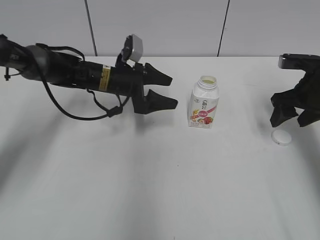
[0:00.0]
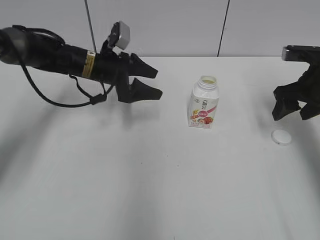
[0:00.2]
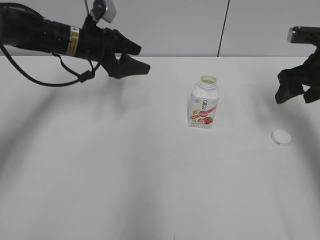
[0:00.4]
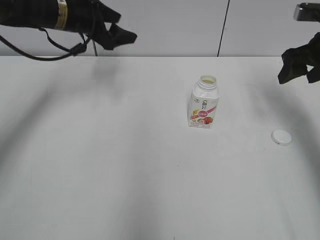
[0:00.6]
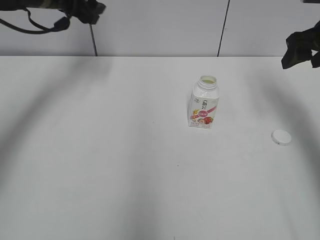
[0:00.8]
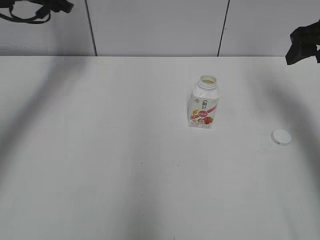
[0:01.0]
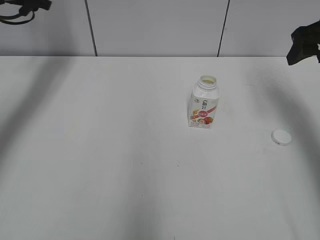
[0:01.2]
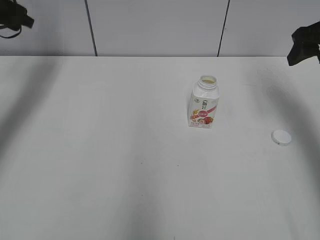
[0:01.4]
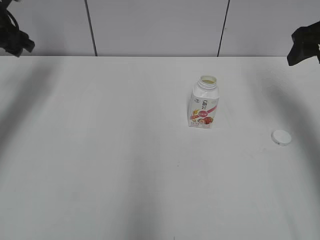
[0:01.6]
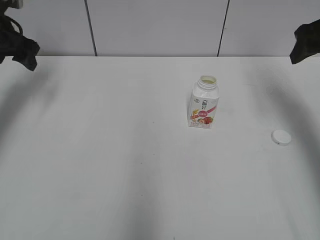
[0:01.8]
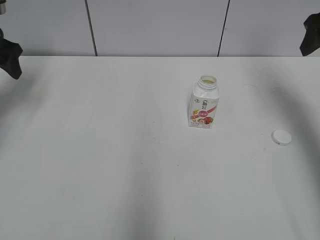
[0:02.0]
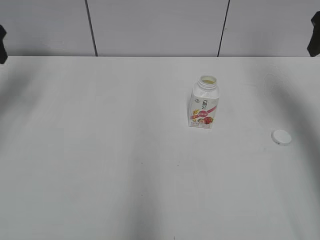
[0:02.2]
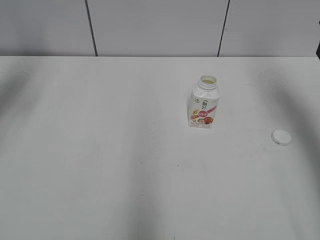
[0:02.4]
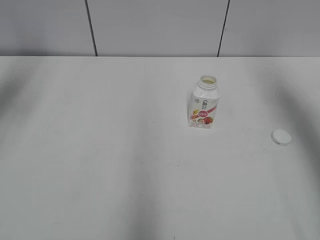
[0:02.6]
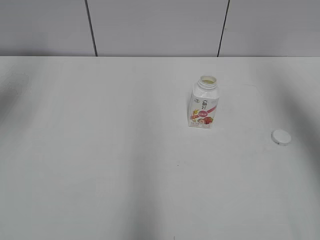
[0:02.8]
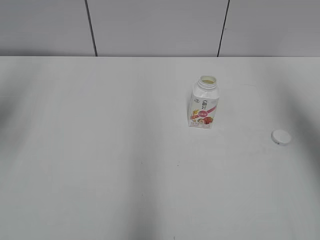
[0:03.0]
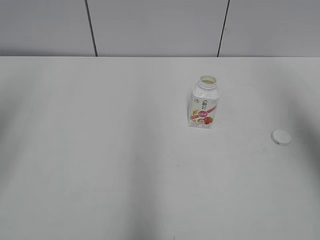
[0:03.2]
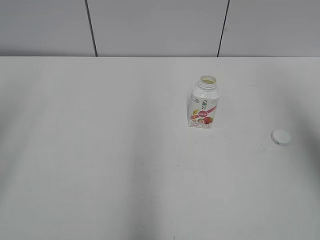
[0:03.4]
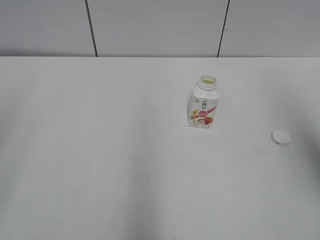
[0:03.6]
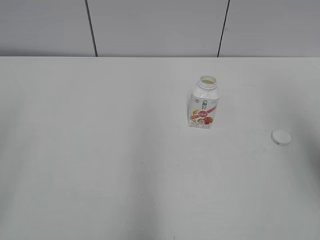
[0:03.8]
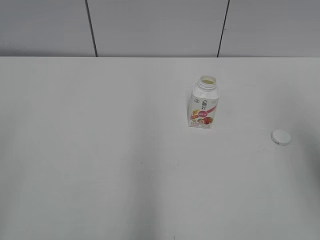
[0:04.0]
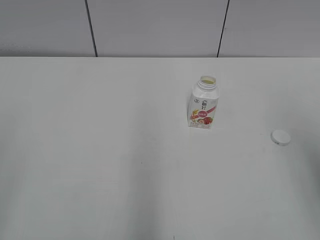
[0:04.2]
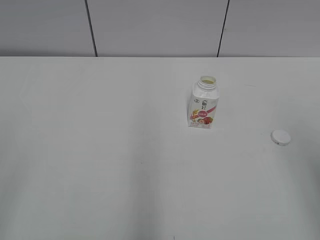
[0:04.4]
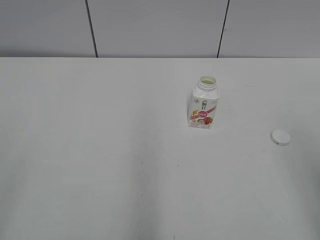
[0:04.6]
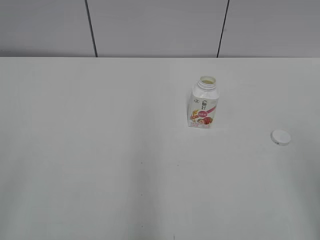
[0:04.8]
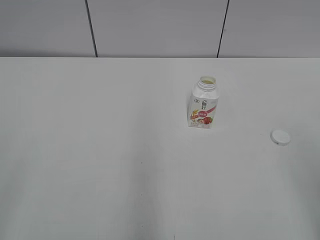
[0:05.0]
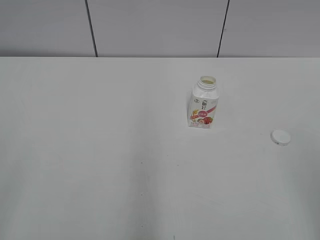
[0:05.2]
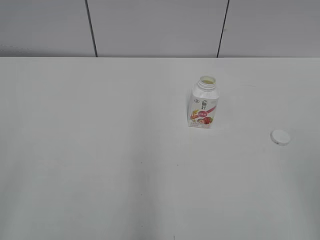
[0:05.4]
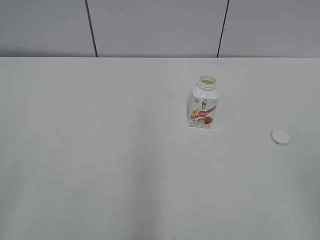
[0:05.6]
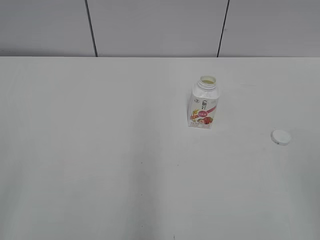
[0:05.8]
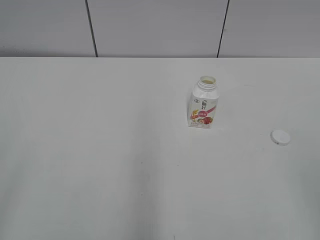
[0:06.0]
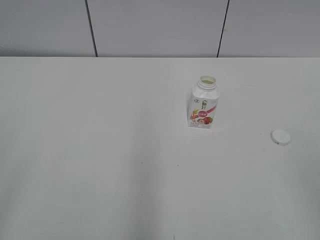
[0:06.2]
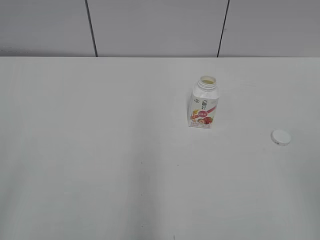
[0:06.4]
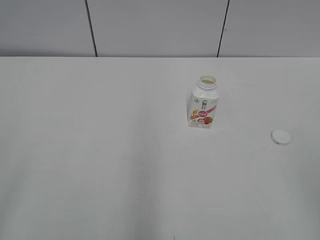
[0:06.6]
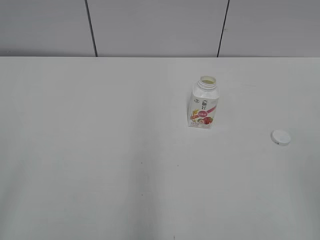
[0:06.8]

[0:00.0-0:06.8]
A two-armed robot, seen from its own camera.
0:00.0 to 0:01.4: The left gripper moves to the left and upward, some 30 cm. The right gripper goes some 10 cm upward.
0:01.4 to 0:02.8: The left gripper is displaced backward and upward by about 15 cm; the right gripper is displaced upward and backward by roughly 10 cm.
0:02.8 to 0:04.0: The right gripper shifts approximately 15 cm backward. The left gripper moves backward, some 30 cm.
0:04.0 to 0:05.4: The right gripper is displaced backward and downward by about 15 cm.

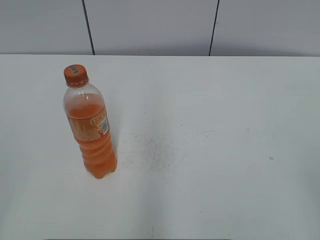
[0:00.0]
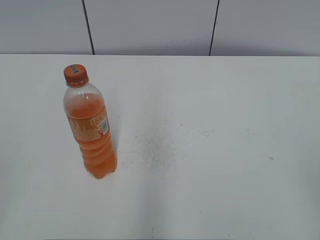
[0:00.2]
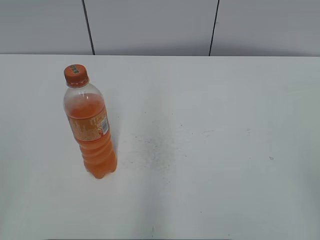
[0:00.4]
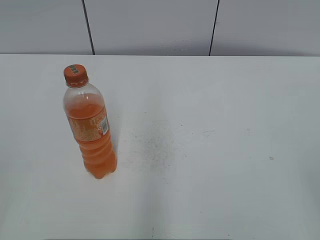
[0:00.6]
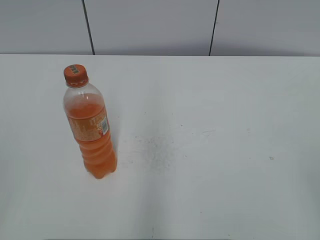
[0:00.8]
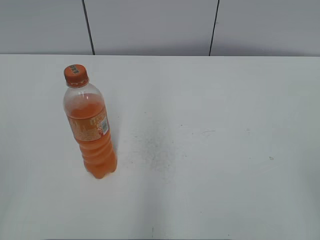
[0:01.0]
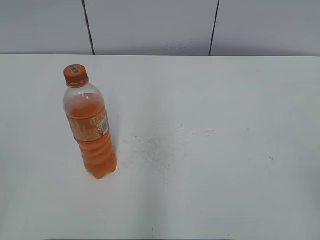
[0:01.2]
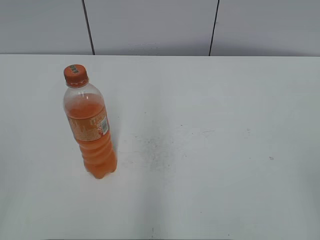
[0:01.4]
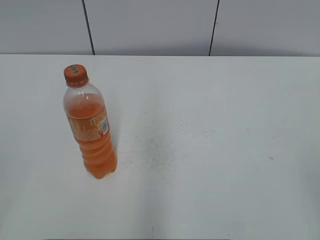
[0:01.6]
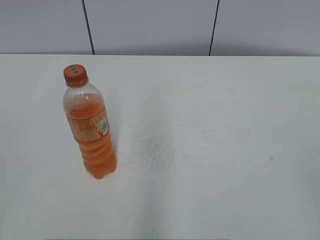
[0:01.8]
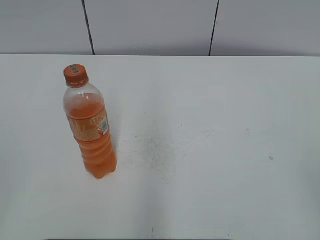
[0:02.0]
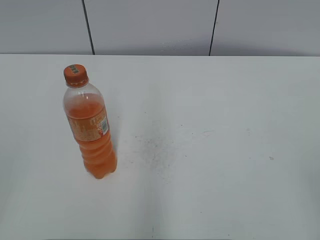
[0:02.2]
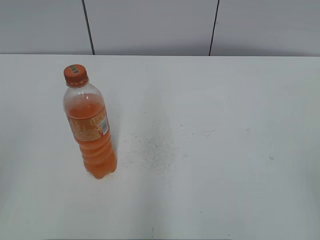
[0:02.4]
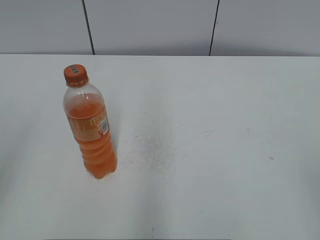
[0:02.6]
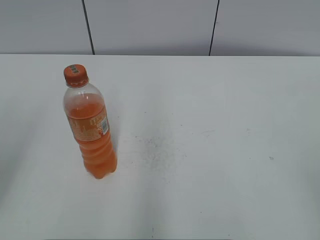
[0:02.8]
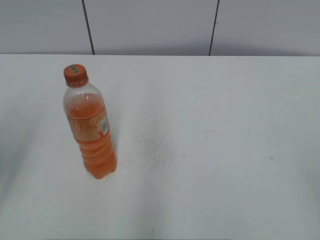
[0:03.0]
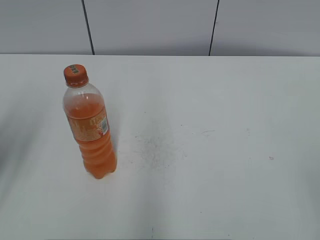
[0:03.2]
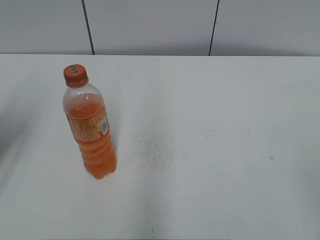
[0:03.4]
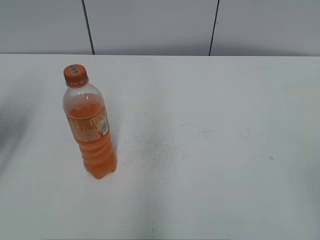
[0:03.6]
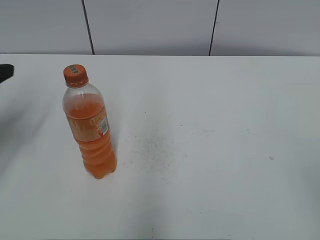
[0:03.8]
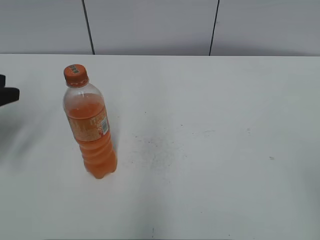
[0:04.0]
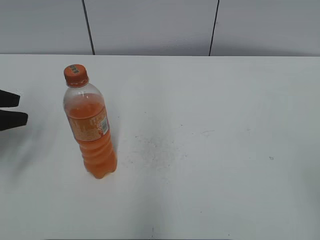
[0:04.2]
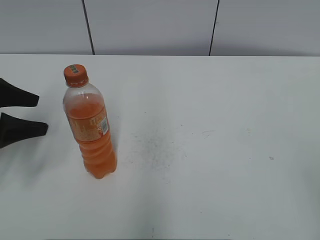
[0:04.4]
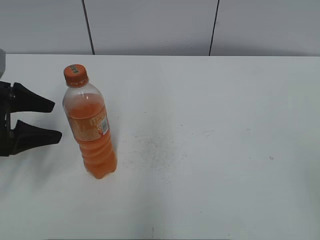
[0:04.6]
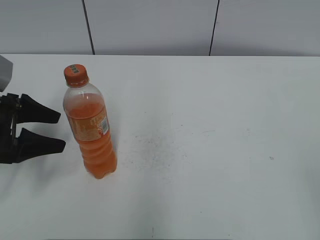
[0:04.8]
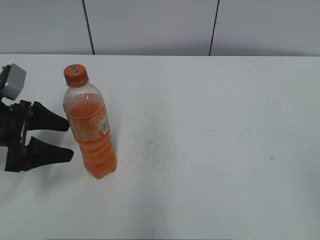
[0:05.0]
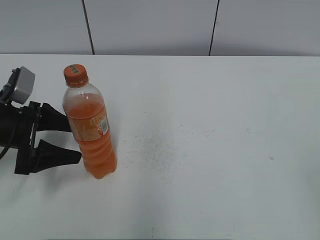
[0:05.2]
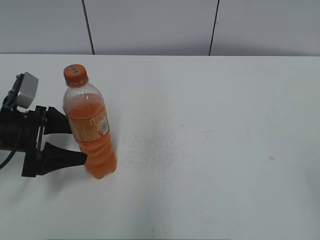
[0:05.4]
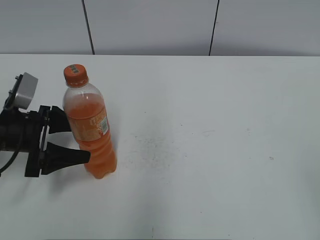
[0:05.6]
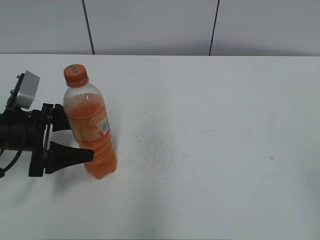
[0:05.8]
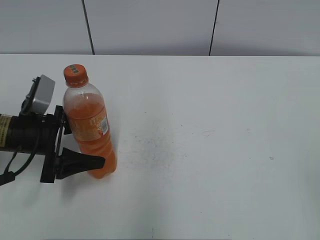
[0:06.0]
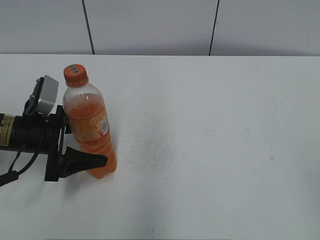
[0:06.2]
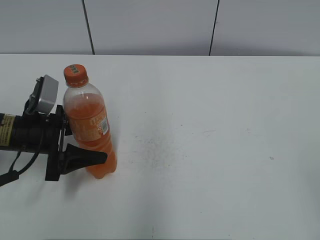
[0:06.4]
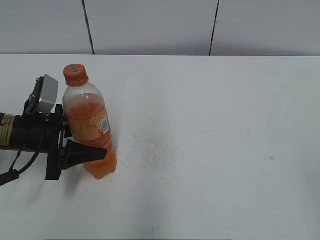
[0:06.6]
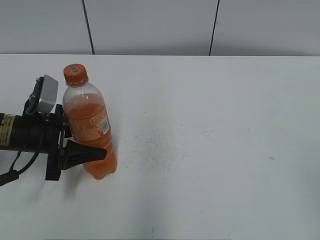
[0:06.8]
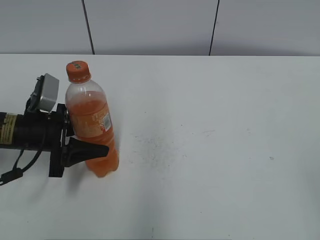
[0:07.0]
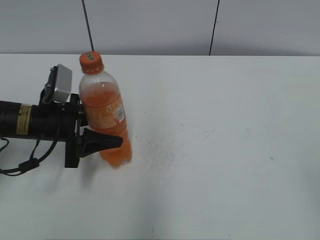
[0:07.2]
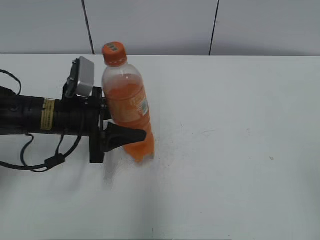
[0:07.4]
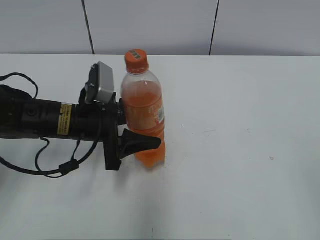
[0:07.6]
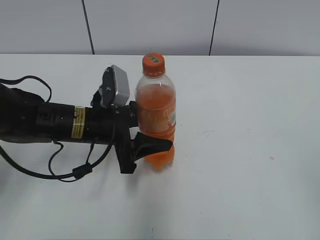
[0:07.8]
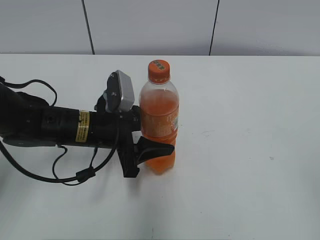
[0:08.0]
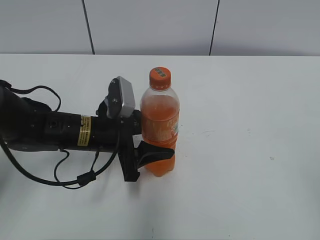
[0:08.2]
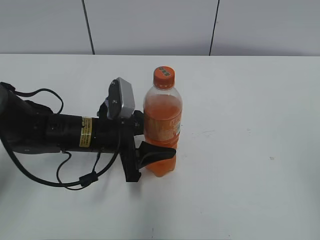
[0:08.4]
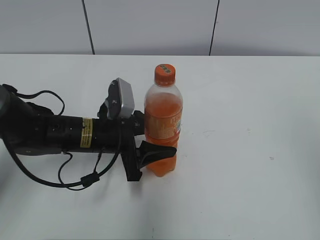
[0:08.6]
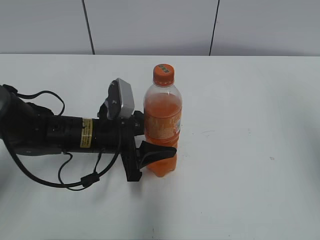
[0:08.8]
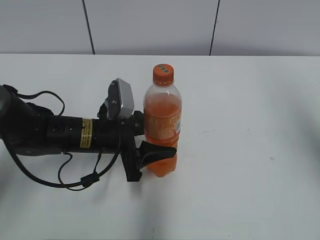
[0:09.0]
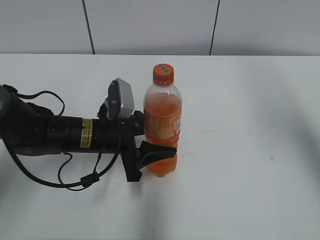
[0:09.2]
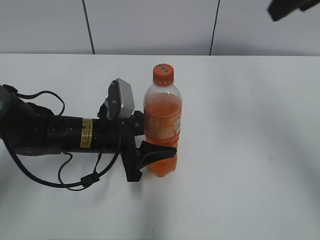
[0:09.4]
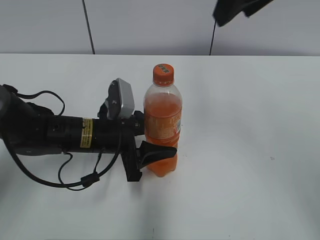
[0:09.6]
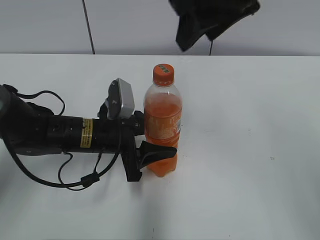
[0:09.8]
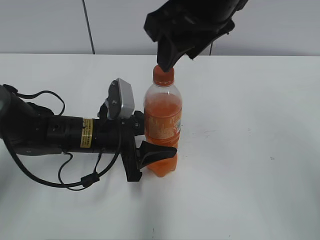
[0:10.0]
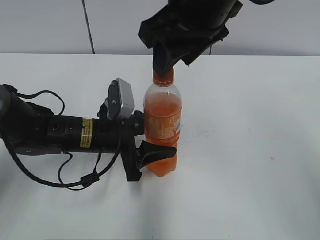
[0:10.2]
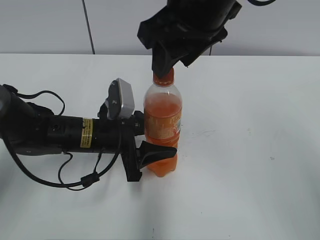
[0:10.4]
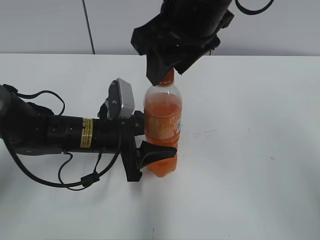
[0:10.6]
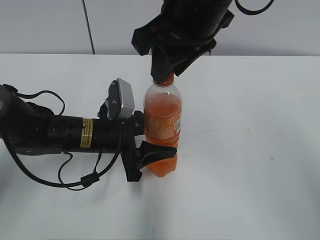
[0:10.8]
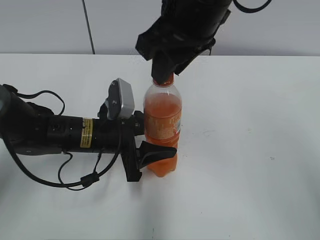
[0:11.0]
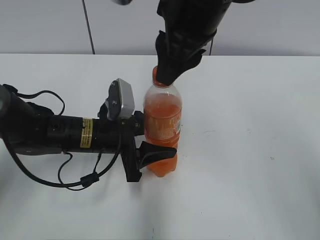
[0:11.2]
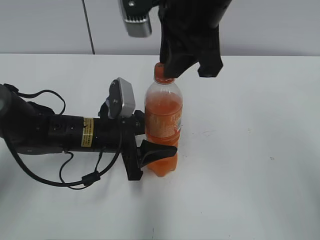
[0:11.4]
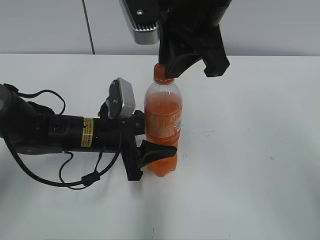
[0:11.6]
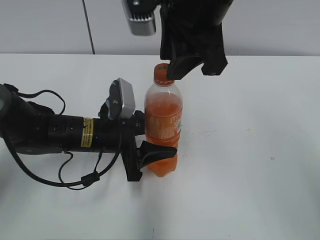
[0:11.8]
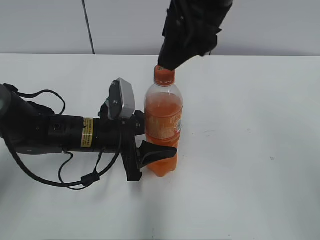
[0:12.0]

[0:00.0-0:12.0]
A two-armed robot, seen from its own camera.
Step, 0:00.0 to 0:06.6: Grab the Mirinda with the left hand.
Step, 0:06.8 to 0:08.4: Move the Mirinda from left to right.
0:01.6 to 0:03.0: The left gripper travels forward by about 15 cm, and opens.
0:03.0 to 0:04.4: The left gripper shifts approximately 15 cm forward and downward, and opens.
0:04.4 to 0:06.0: The left gripper is displaced to the right and downward by approximately 10 cm.
0:06.0 to 0:07.6: The left gripper travels to the right by roughly 10 cm, and closes up.
0:07.6 to 0:09.0: The right gripper travels forward and upward by some 25 cm.
0:09.0 to 0:10.4: The right gripper travels to the left by some 25 cm.
0:10.4 to 0:12.0: The right gripper closes, then reopens.

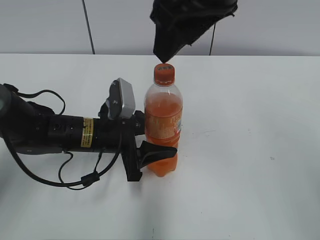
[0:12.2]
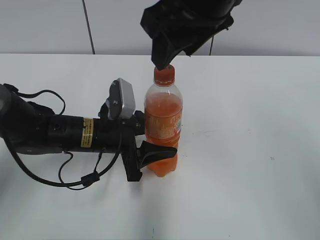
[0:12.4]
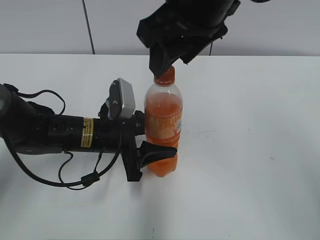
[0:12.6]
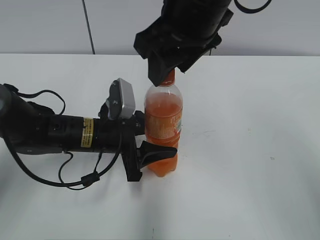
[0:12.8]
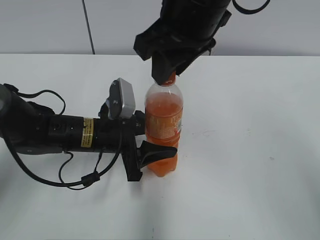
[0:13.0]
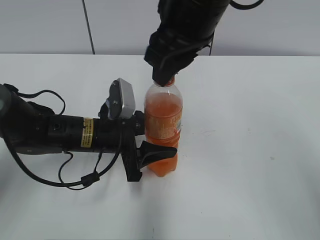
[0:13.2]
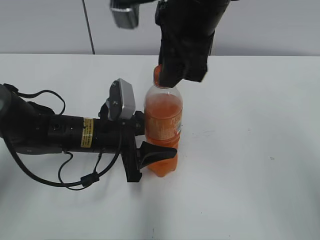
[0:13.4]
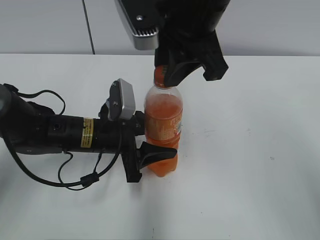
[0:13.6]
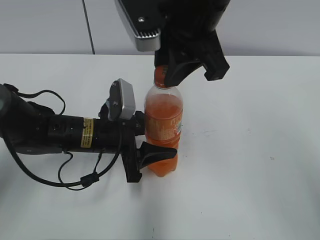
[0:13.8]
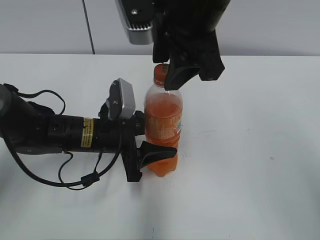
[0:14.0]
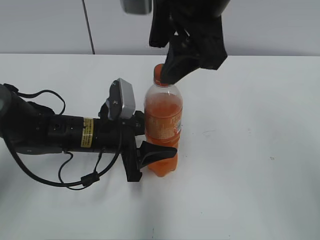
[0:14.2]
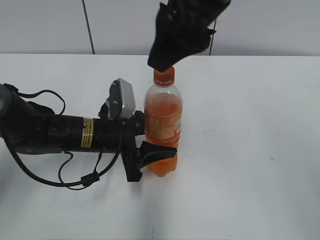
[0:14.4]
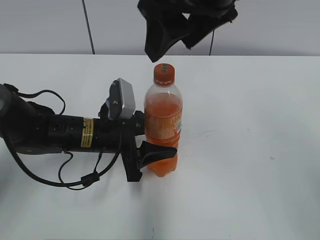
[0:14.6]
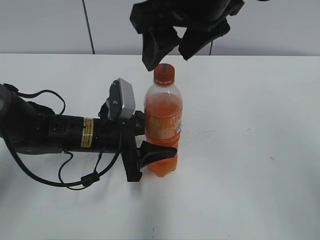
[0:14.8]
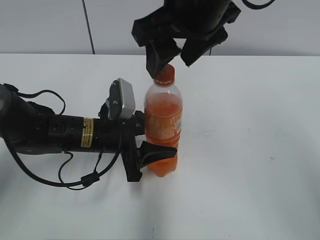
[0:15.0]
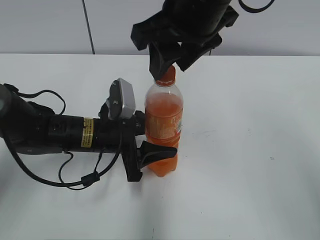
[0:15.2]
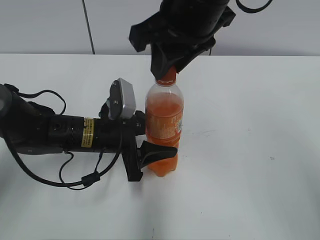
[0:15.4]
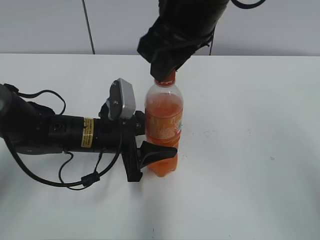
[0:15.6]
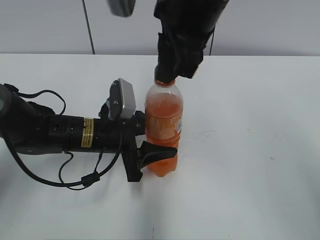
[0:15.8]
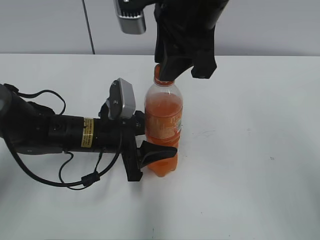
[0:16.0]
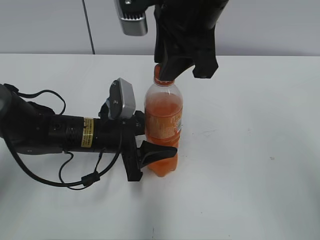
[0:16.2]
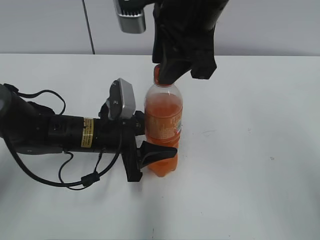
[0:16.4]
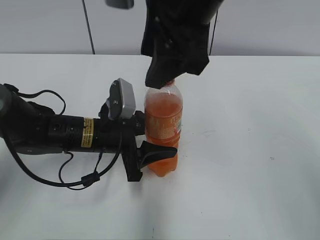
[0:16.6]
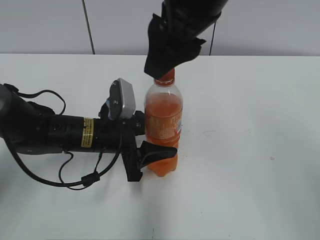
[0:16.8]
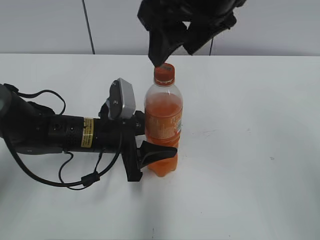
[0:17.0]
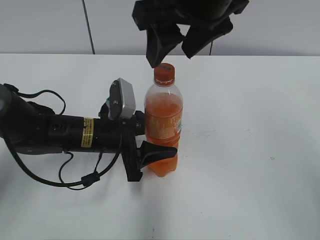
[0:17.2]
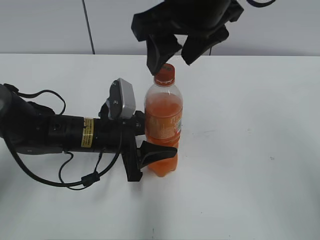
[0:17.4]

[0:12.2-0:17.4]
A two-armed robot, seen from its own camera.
0:12.2 to 0:14.0: The right gripper closes, then opens again.
0:14.0 to 0:15.6: The right gripper closes up.
0:15.6 to 0:17.4: The right gripper opens.
